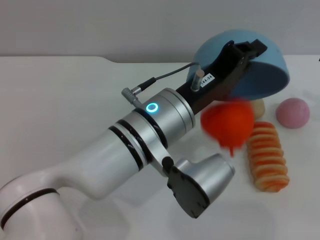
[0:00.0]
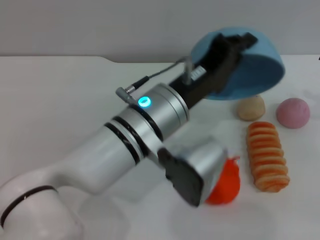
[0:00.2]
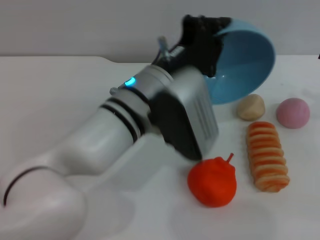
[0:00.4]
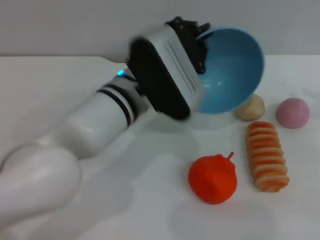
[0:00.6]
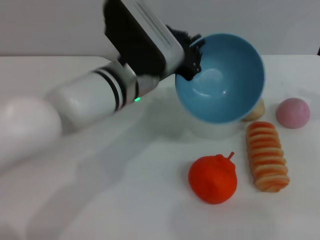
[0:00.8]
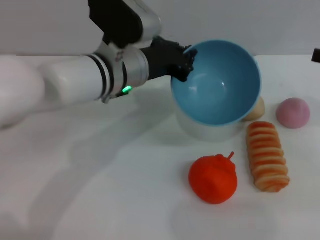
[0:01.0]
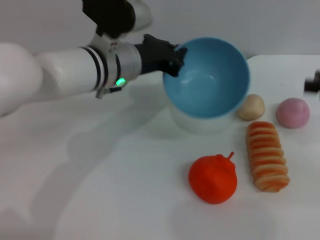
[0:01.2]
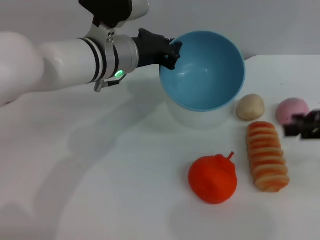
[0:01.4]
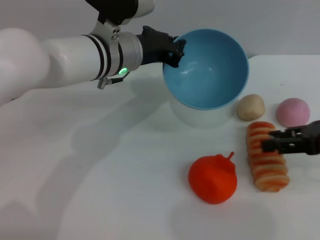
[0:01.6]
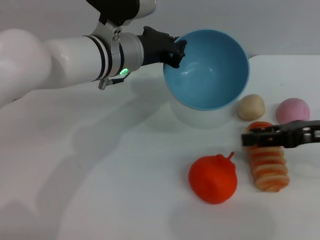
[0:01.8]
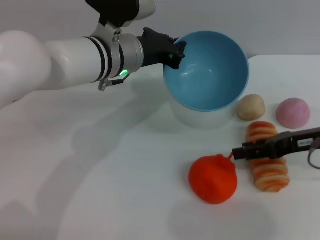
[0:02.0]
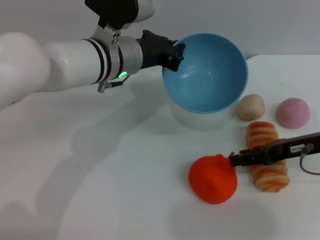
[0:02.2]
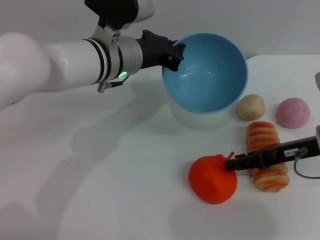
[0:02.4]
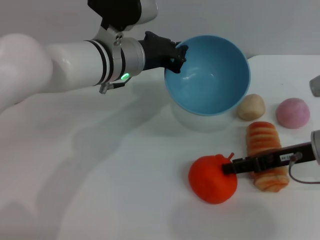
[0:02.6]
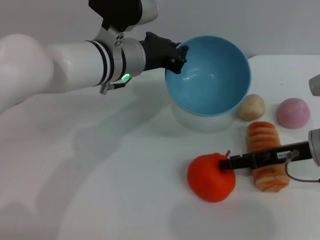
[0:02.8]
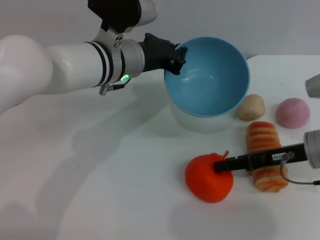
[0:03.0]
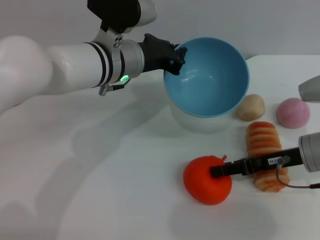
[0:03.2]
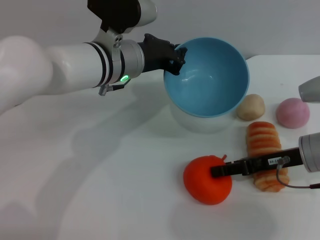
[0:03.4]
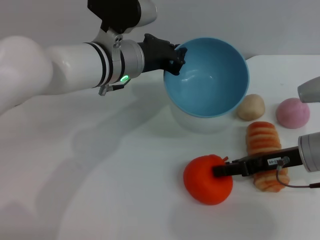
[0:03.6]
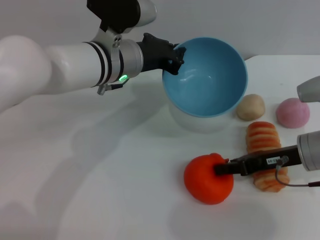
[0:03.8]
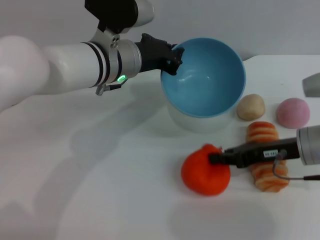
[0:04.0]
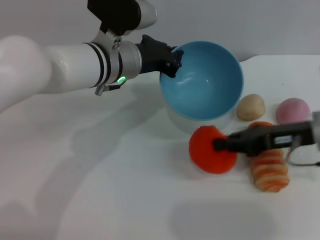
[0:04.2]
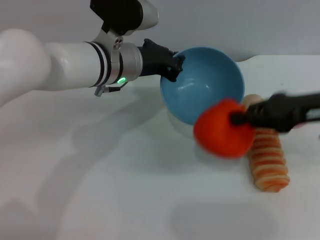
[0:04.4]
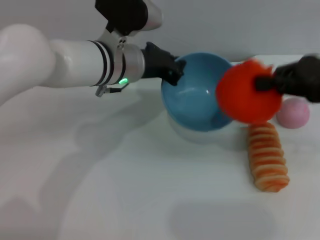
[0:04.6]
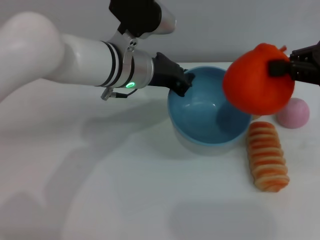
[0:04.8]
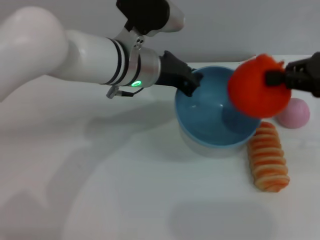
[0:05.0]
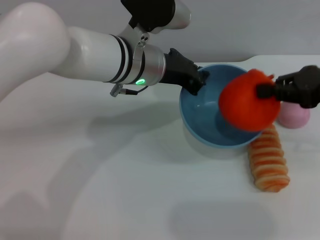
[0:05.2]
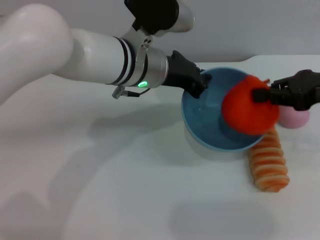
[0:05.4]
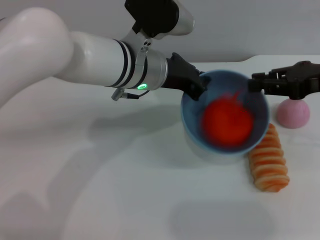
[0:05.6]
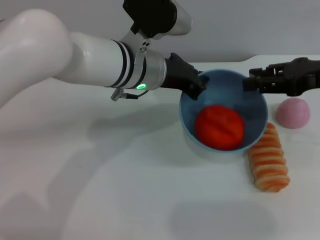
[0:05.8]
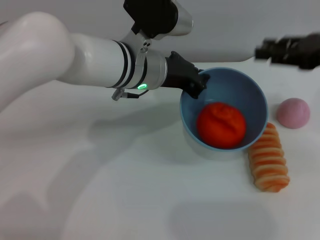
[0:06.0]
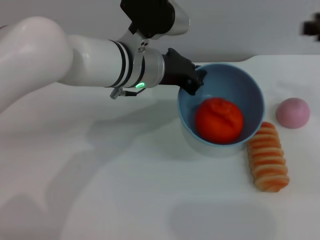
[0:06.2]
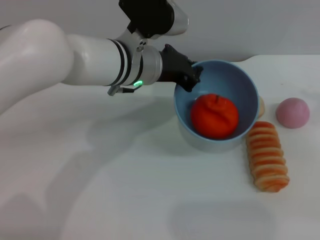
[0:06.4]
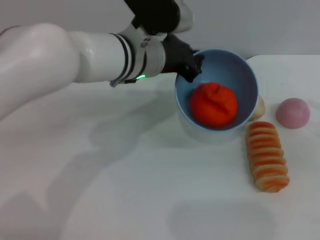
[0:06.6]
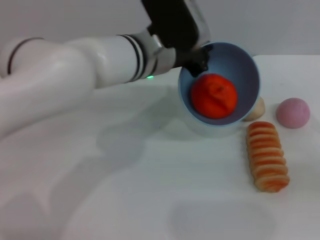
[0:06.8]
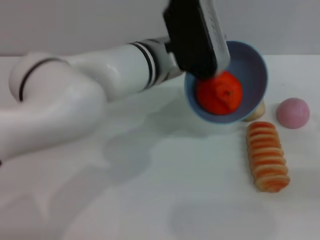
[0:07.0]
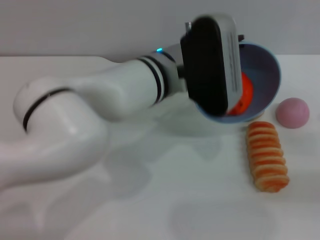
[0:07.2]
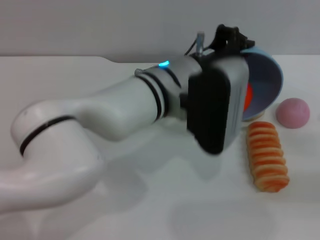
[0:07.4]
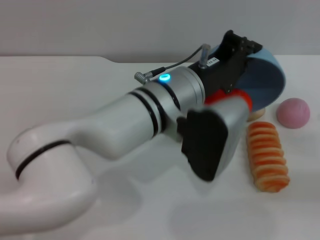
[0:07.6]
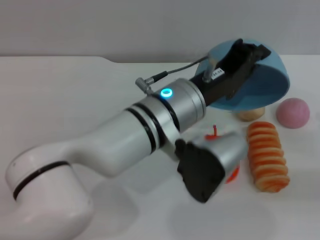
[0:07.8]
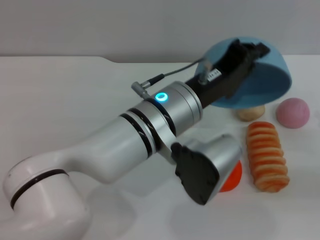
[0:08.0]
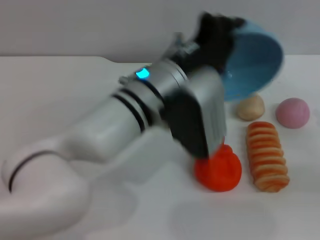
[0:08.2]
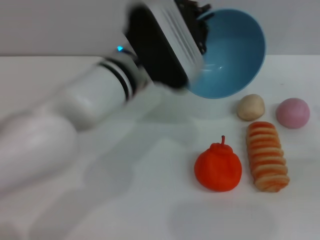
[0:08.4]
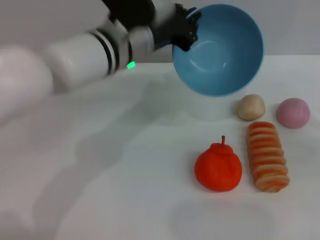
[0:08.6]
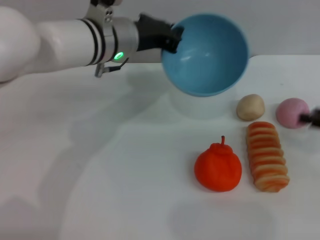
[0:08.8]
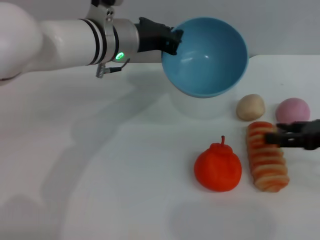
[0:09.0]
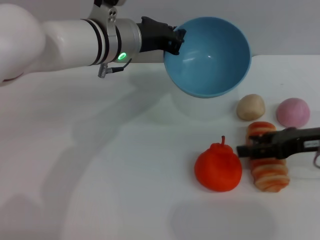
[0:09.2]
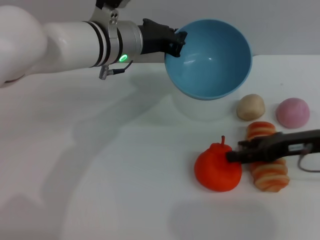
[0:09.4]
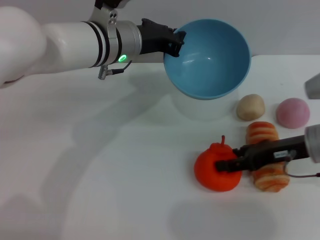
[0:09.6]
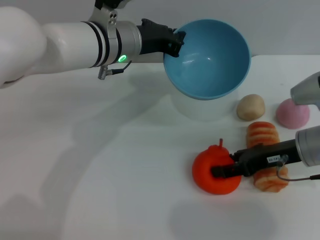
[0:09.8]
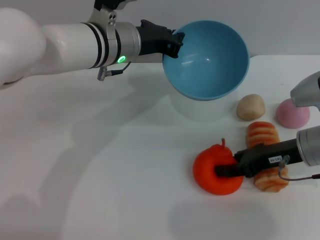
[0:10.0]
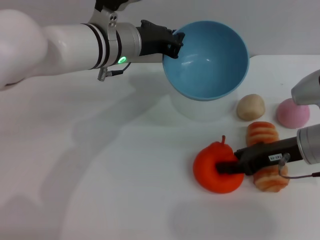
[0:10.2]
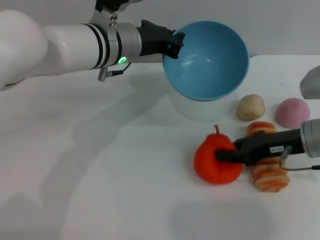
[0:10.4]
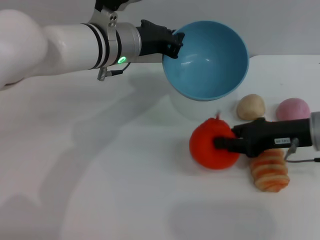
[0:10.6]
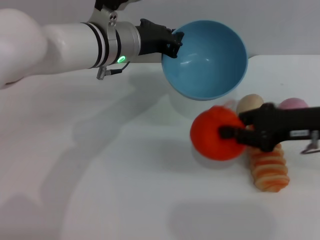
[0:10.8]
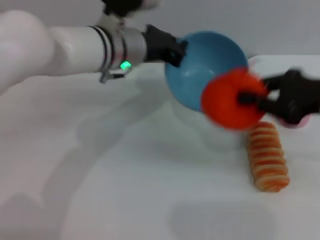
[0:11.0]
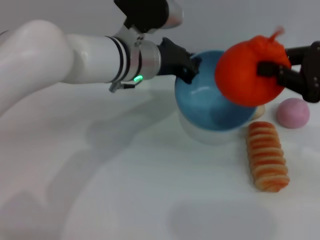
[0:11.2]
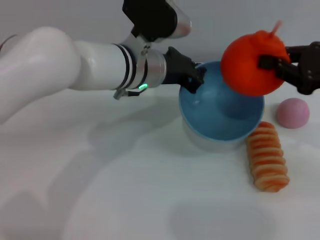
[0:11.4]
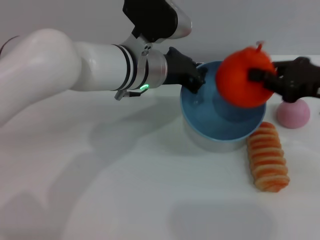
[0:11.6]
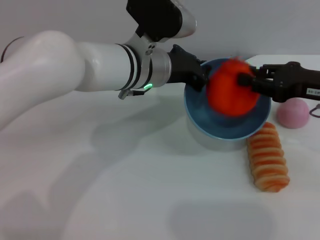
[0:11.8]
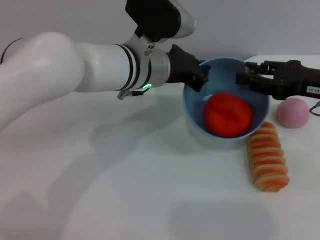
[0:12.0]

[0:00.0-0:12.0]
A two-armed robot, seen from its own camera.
Task of the whole recording: put the orange into the blue bowl and pour it out repeatedly.
Step, 0.8 to 4.4 s: Pick up the orange with the right gripper.
Step, 4.6 to 6.0 s: Place the orange into the bowl.
Step, 6.2 to 7.6 s: Pour the orange out of the bowl.
Step, 8.0 to 10.4 s: Pick up the orange with the right gripper.
0.0 to 1.6 s: The right gripper shifts approximately 5 cm to the left. The left gripper heads forward and to the left, covering some 15 cm.
1.6 to 3.0 s: The right gripper goes about 10 cm downward and to the left.
3.0 to 4.4 s: The right gripper heads upward, covering approximately 10 cm, and closes its fingers.
4.4 to 6.0 s: The right gripper ends up about 5 cm from where it was, and opens its fingers.
6.0 to 7.6 s: The right gripper heads downward, backward and to the right, covering approximately 20 cm, and opens its fingers, while the left gripper moves backward, about 5 cm.
7.6 to 9.0 s: The right gripper travels to the left and forward by roughly 10 cm, while the left gripper shifts approximately 15 cm forward and to the left.
9.0 to 10.4 s: The right gripper travels to the left by about 10 cm, and closes its fingers.
10.4 to 12.0 s: The right gripper travels upward by roughly 5 cm. The left gripper moves approximately 5 cm.

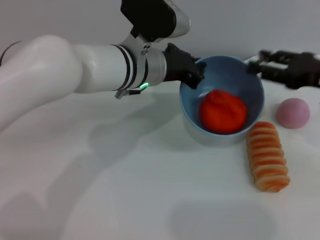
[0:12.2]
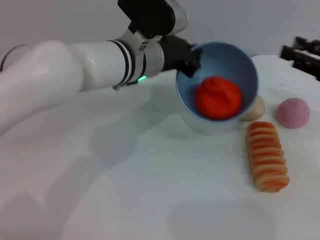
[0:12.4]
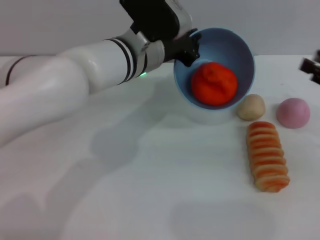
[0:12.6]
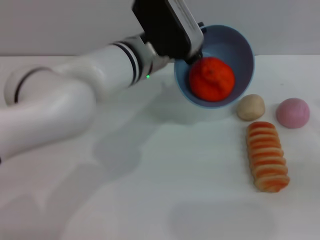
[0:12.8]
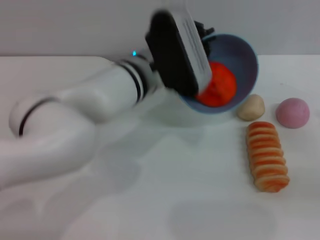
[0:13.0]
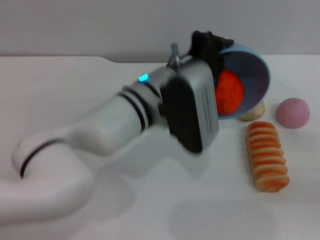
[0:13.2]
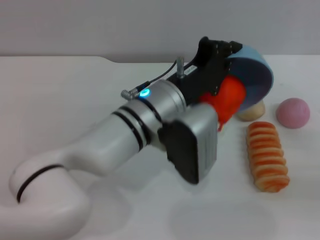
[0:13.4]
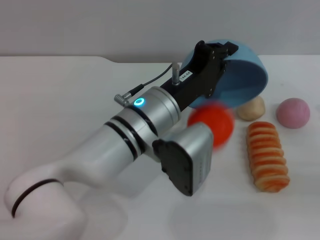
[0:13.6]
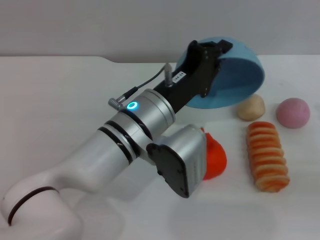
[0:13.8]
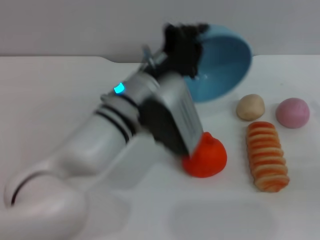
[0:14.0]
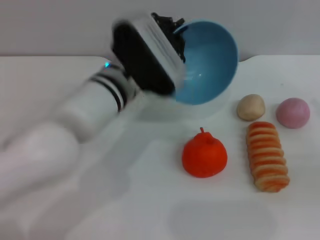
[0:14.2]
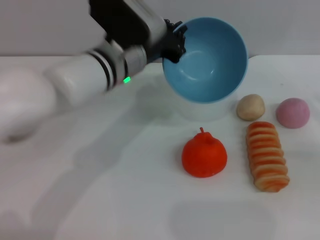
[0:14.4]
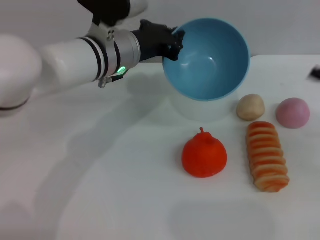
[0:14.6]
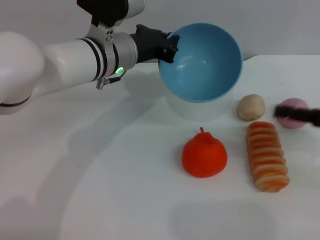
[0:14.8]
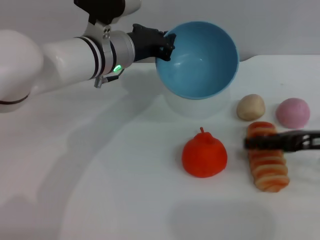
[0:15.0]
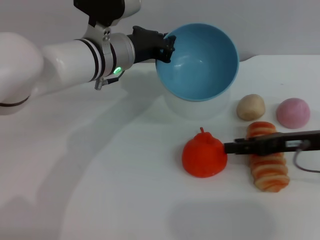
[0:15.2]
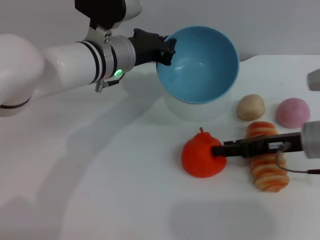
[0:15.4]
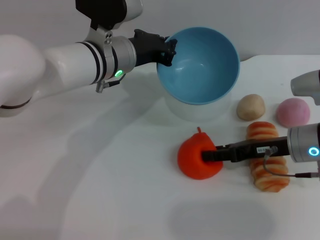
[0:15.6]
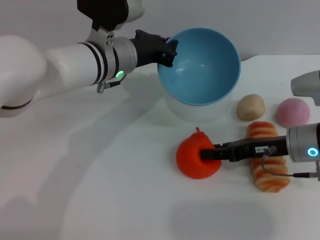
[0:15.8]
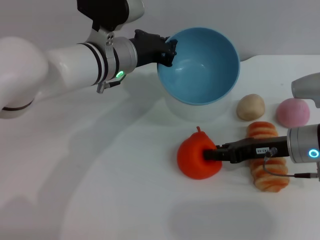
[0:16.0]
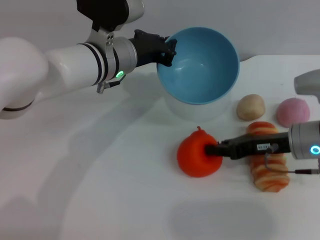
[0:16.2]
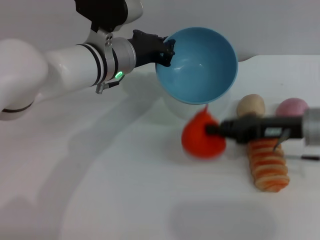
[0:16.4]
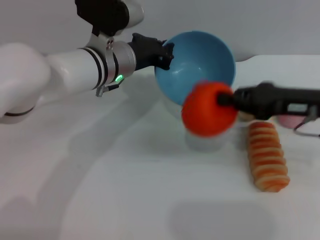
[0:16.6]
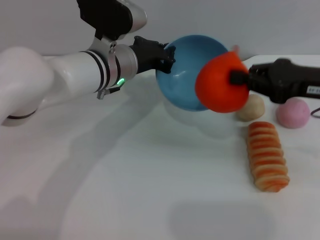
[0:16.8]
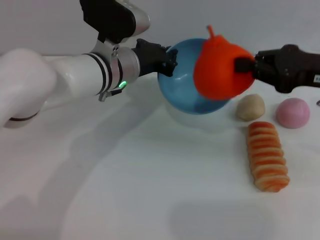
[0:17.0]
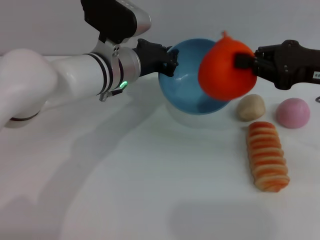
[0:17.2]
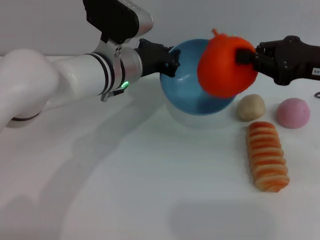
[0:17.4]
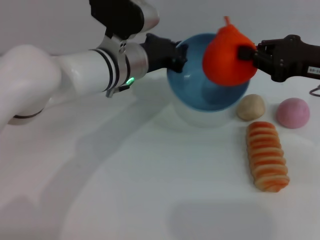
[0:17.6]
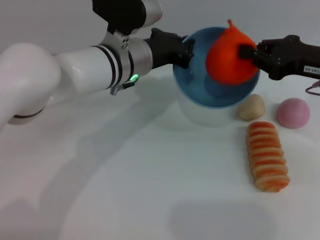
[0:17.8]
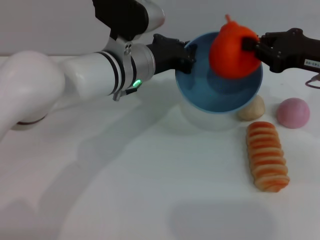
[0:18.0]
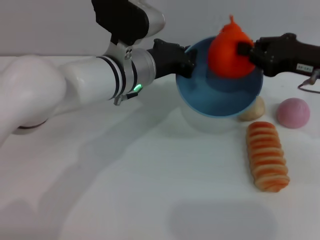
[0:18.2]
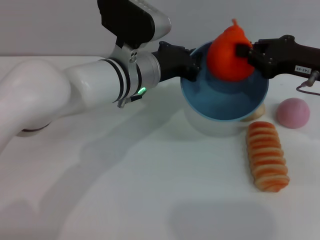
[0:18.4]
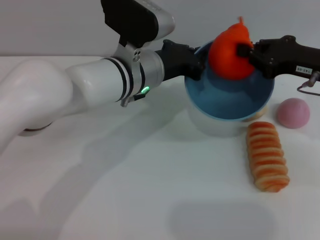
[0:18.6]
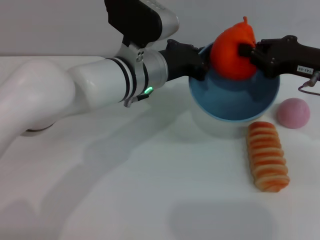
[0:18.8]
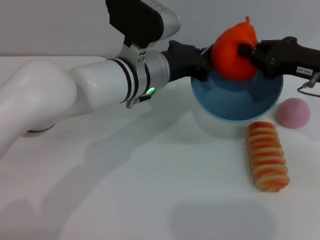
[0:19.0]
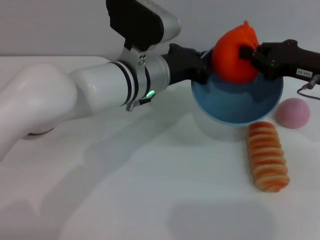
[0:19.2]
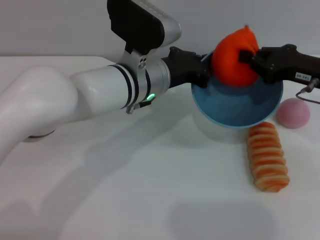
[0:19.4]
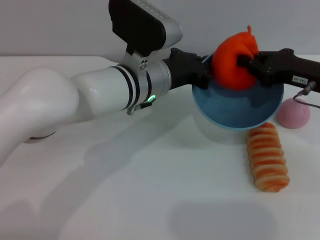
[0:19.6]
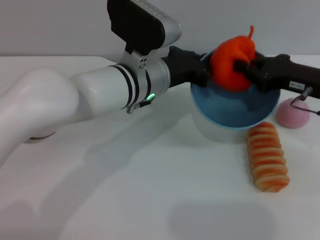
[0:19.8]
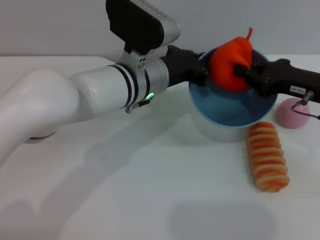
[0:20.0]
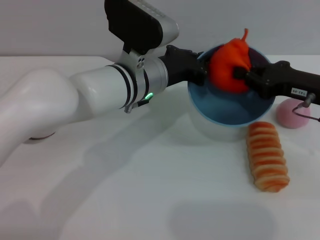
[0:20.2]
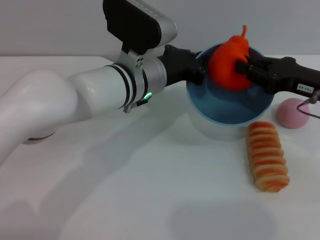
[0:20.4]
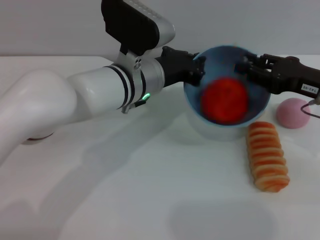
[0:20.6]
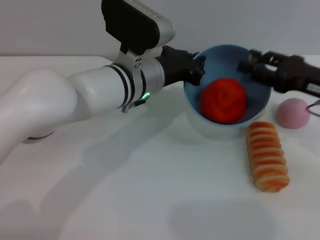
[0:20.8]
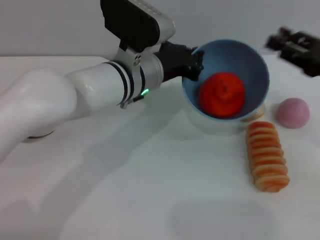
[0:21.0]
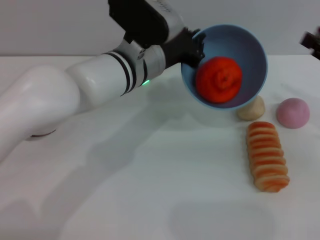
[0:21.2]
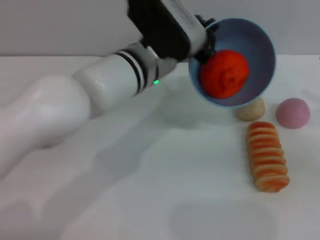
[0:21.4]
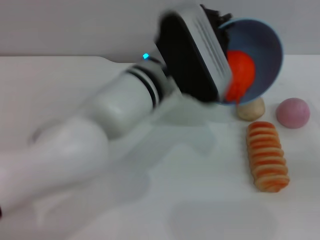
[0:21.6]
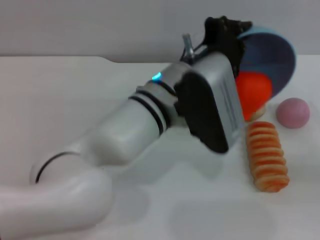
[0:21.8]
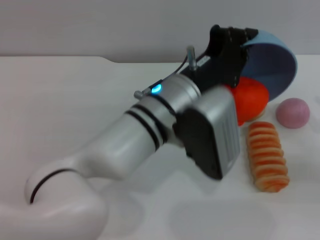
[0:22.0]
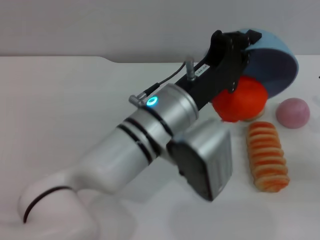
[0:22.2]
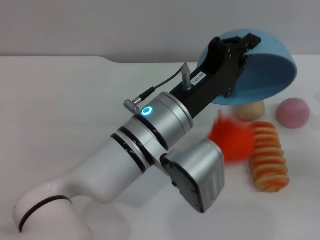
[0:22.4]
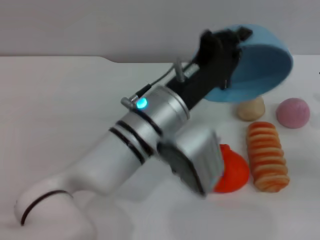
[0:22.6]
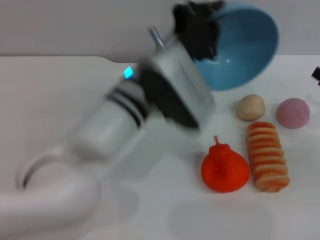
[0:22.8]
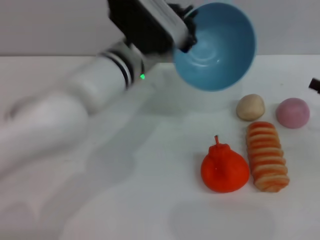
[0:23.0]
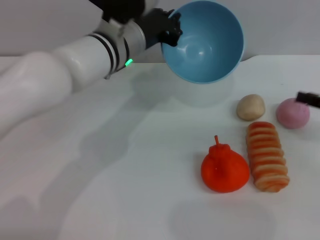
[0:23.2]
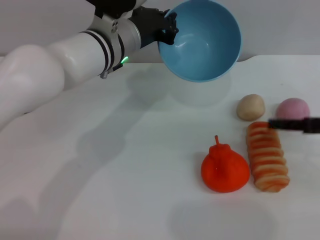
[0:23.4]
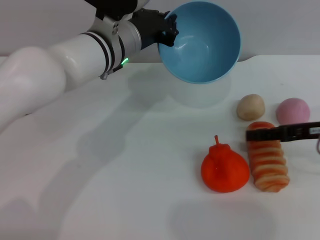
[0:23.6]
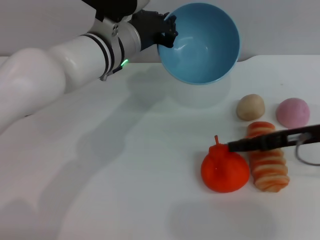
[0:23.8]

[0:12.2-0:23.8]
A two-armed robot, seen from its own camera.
Task of the whole recording: put the orange into the blue bowl and pour it out repeatedly.
Step, 12.6 to 13.6 s: Pour the orange out of the bowl.
Step, 13.8 to 16.4 s: Pick up the orange with the right gripper.
Step, 16.6 to 20.8 s: Place the orange into the bowl.
Step, 21.0 to 22.8 s: Pour the orange out of the bowl.
12.2 to 13.6 s: The right gripper shifts some 15 cm to the right, backward and downward, while the left gripper goes about 10 cm backward.
13.6 to 15.0 s: The right gripper goes some 10 cm to the left and forward; the left gripper moves forward and to the left, roughly 15 cm.
15.0 to 16.6 s: The right gripper changes place by about 5 cm, and closes up.
18.0 to 19.4 s: The grippers move only a little.
19.4 to 21.0 s: The right gripper moves about 5 cm, and opens.
21.0 to 22.4 s: The right gripper heads downward and to the right, covering approximately 10 cm. The left gripper shifts approximately 10 cm backward.
22.4 to 23.8 s: The left gripper moves forward and to the left, some 15 cm, while the right gripper goes about 10 cm to the left.
